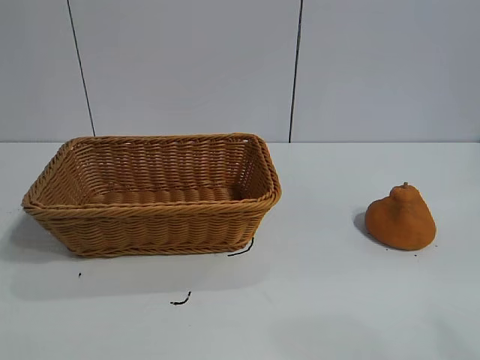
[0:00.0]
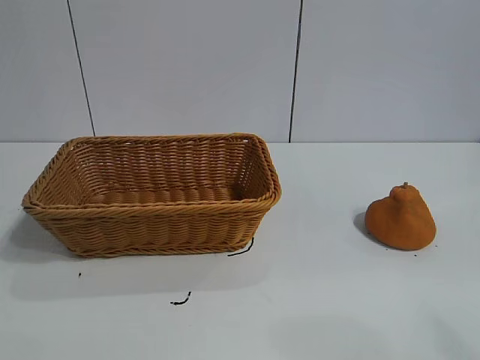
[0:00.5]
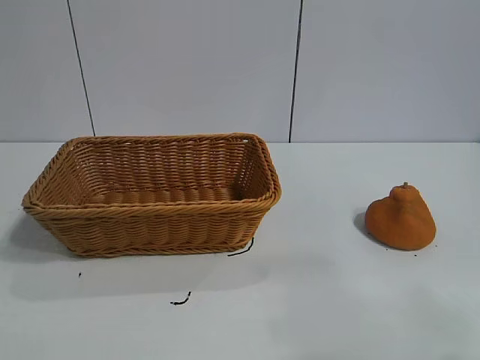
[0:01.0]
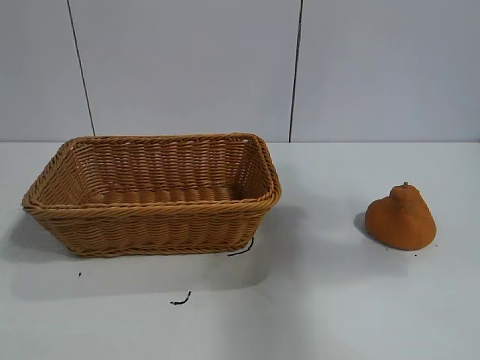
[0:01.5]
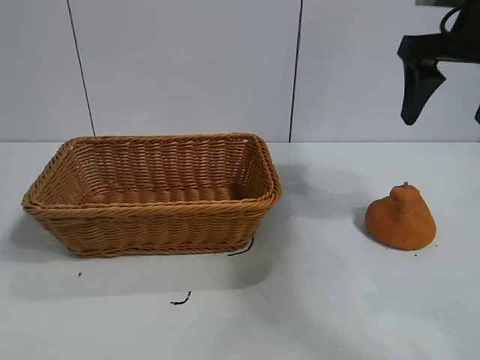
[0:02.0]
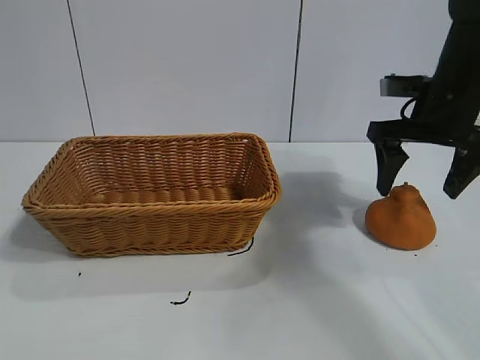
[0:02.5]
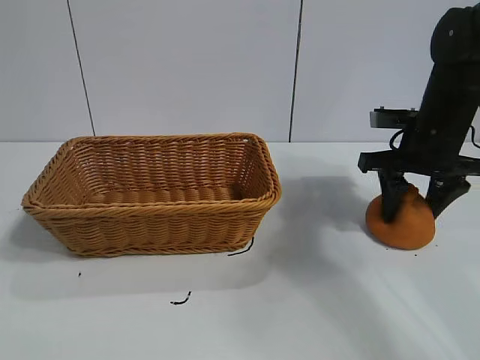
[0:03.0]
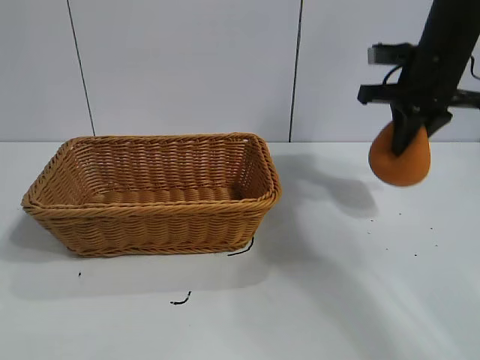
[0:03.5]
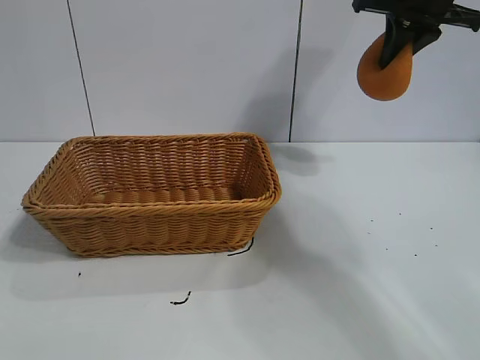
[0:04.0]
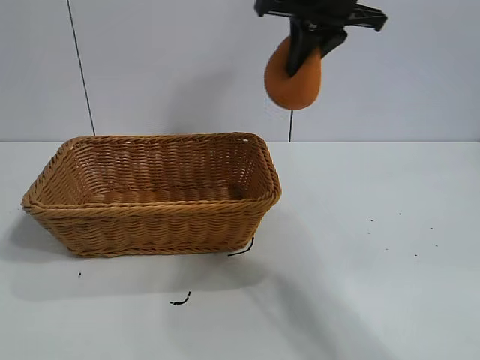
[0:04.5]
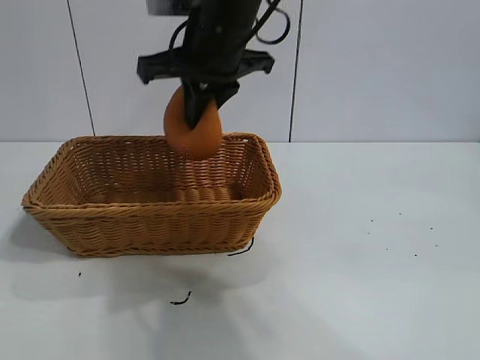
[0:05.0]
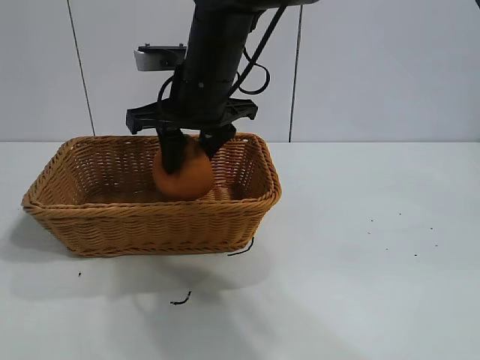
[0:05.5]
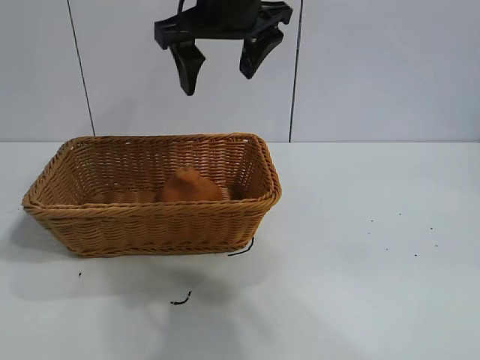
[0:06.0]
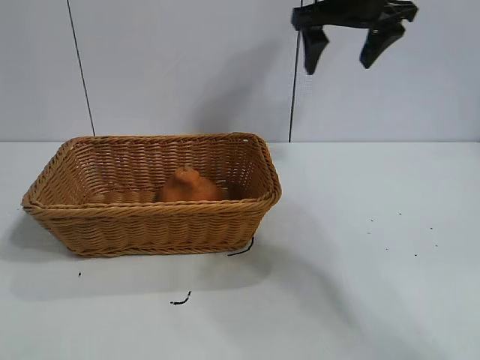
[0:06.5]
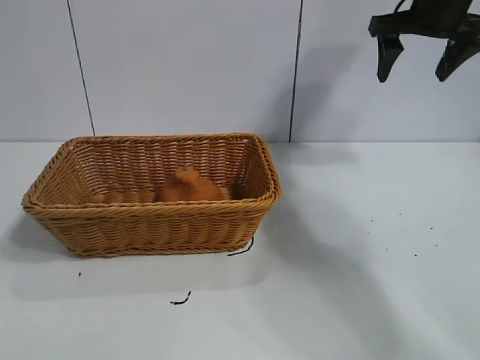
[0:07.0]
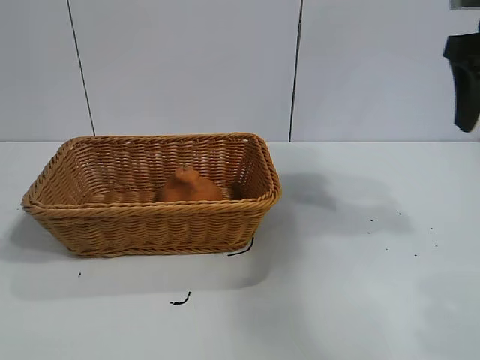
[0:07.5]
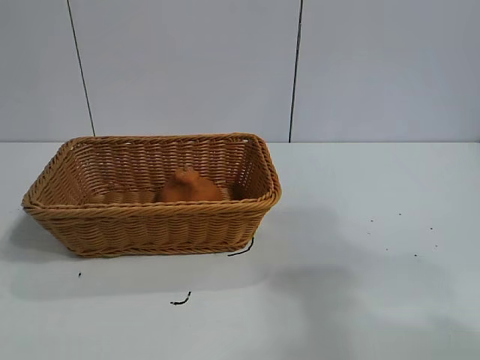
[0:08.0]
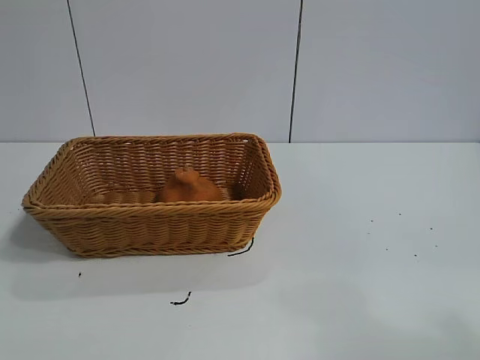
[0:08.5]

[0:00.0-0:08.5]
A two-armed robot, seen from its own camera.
Task of the whole recording: pick up the orange and put it into the basket.
Step, 0:01.0 to 0:03.0: Grasp the orange with right gripper.
Step, 0:03.5 to 0:05.5: Place the orange in the basket with right gripper.
